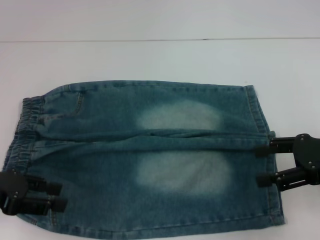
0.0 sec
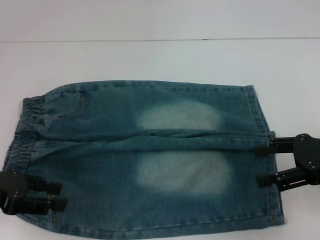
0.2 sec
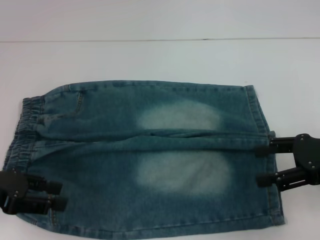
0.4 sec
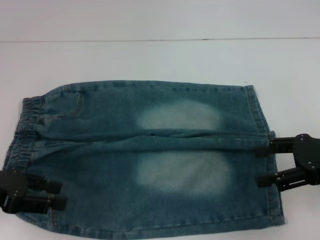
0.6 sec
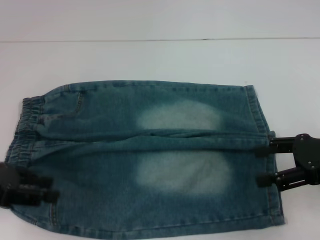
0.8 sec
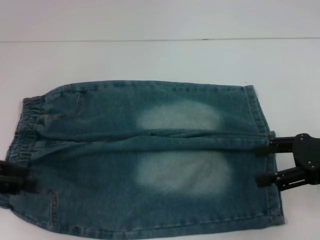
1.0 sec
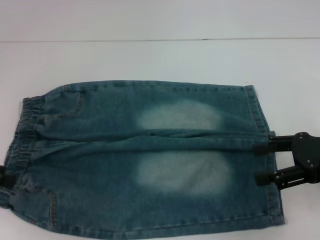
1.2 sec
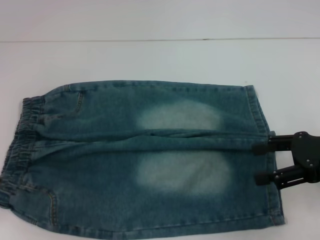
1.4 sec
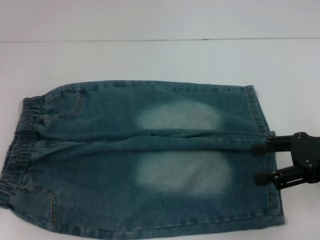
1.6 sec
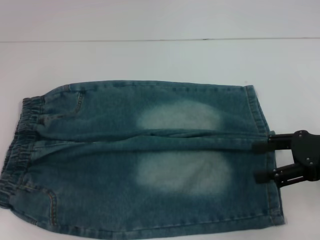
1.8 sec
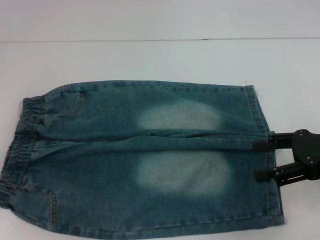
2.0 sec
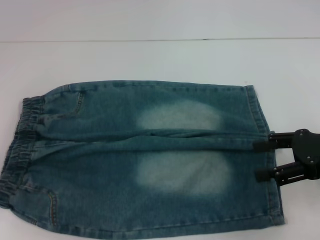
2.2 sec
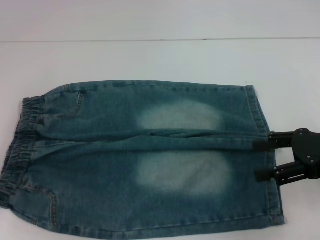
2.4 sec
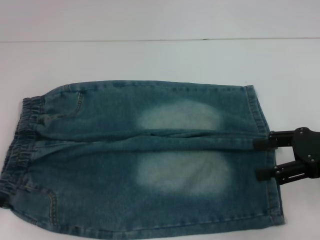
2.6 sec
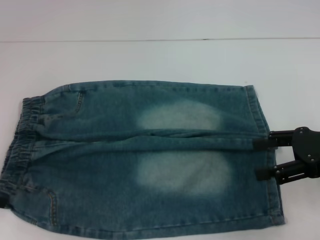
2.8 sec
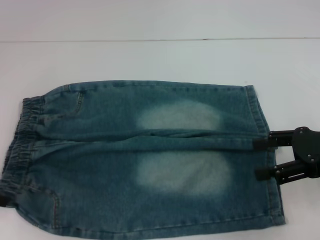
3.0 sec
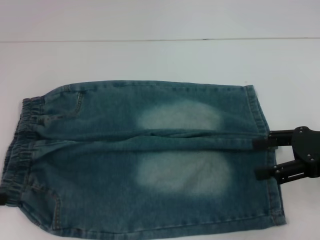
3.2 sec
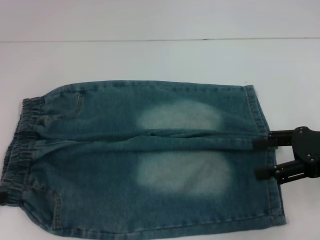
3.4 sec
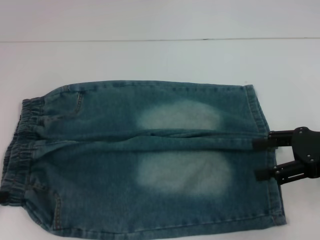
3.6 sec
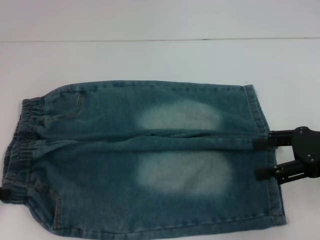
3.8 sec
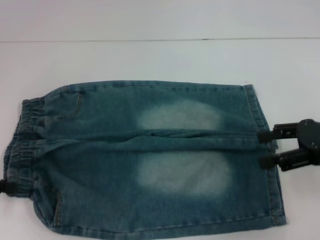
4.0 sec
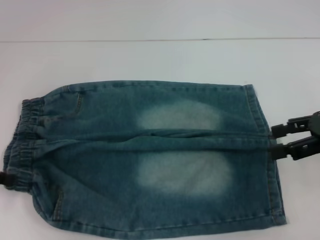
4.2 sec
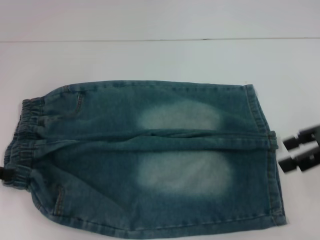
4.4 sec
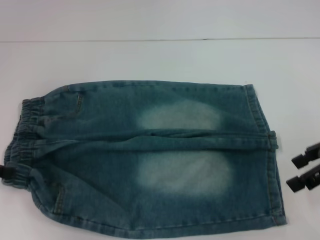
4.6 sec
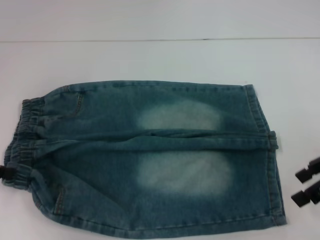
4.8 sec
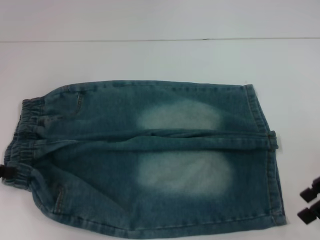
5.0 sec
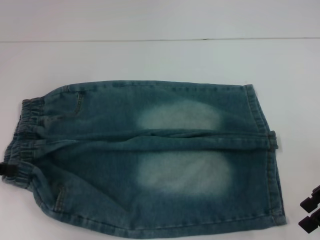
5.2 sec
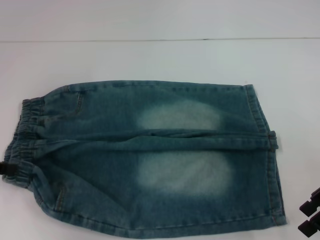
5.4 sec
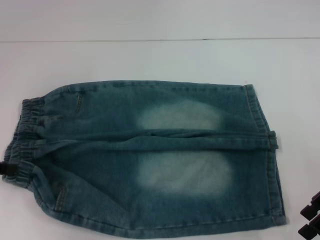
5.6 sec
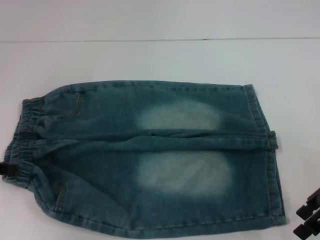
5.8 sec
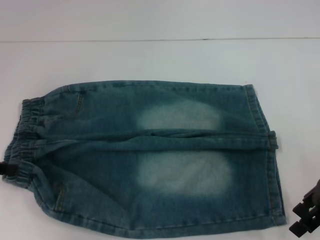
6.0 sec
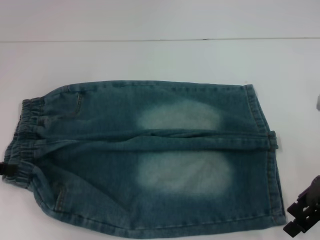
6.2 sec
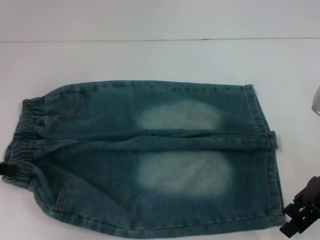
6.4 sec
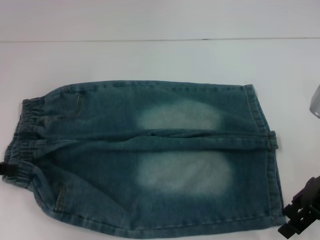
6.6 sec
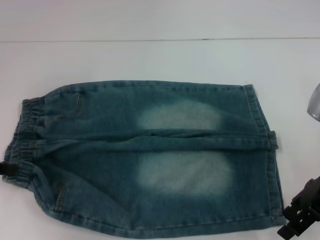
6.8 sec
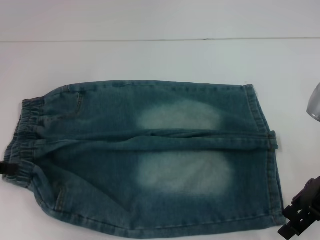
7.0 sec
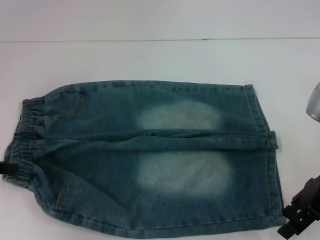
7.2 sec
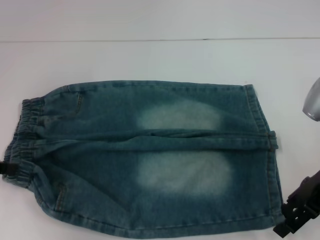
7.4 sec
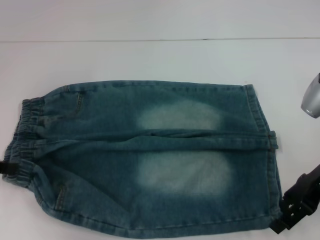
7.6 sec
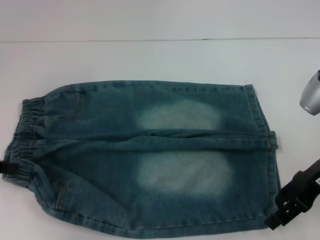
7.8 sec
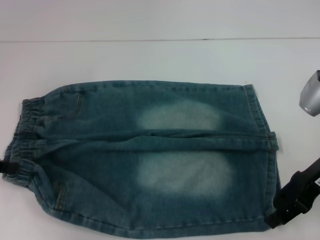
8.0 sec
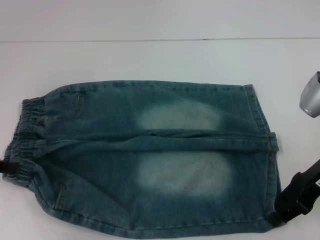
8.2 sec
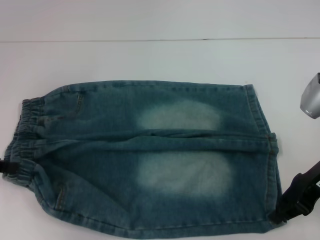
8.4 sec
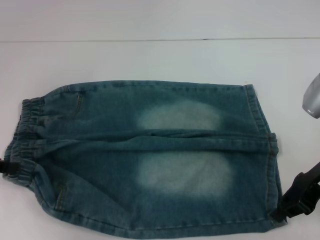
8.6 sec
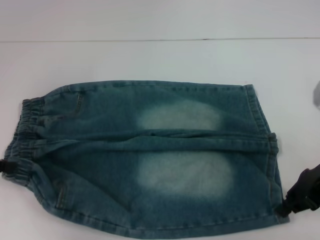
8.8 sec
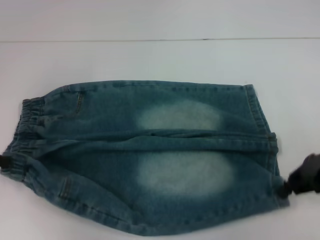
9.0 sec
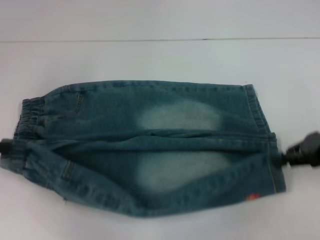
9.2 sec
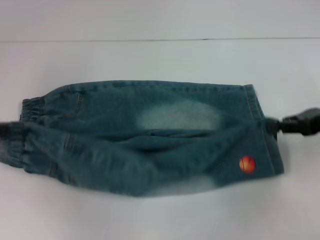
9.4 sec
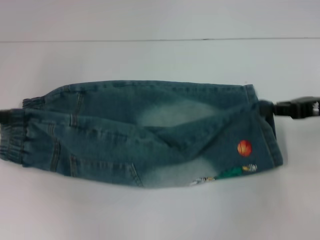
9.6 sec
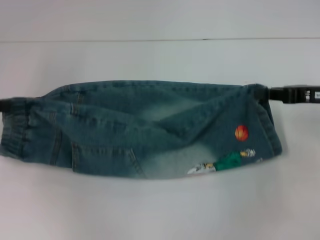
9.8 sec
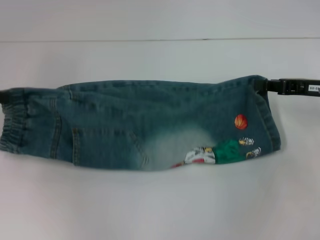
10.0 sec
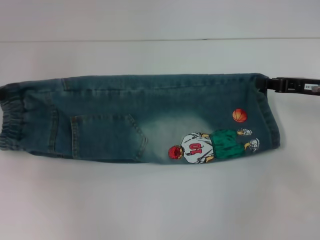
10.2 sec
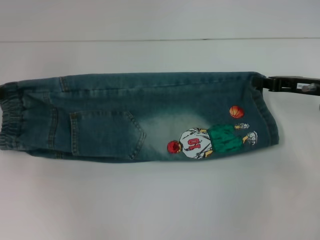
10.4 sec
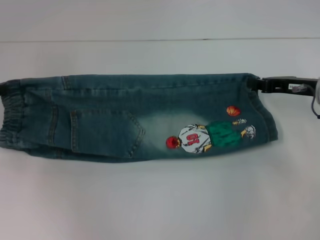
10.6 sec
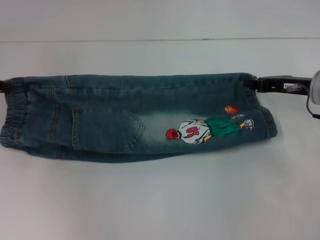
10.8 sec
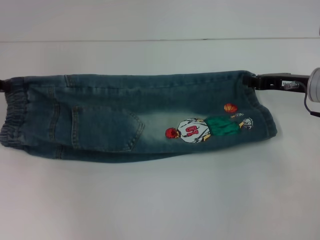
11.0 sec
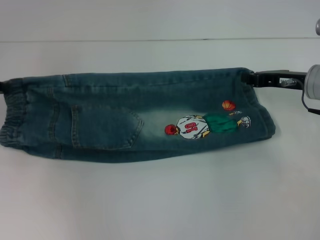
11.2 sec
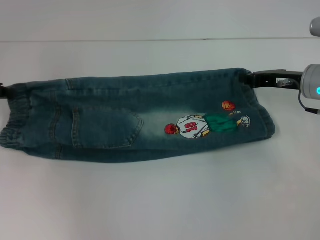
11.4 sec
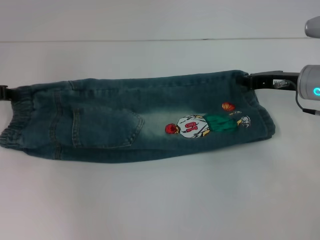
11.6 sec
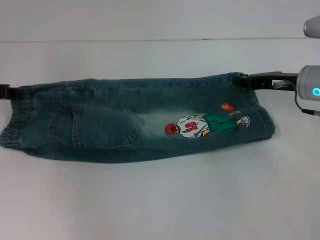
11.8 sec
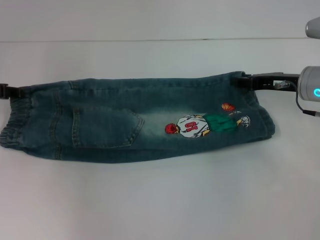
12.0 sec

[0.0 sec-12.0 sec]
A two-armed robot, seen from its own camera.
Step, 0.0 sec to 3.6 sec: Hold the lower left waistband with your left hand.
Step, 3.8 sec to 8.6 sec: Grab the lower right pant leg with your right hand.
0.0 sec to 1.6 sec: The left gripper moves to the left, approximately 5 cm.
1.6 sec to 3.0 sec: The grippers stay close to where they were, moving slightly.
3.0 sec to 4.4 sec: The right gripper ends up about 5 cm from where it was. The left gripper closes up.
4.4 sec to 6.0 sec: The right gripper goes about 5 cm downward.
6.0 sec to 7.6 sec: The grippers move only a little.
7.6 sec to 9.0 sec: The right gripper closes its fingers.
9.0 sec to 10.4 sec: The two grippers go roughly 5 cm forward.
10.4 sec to 12.0 sec: There are only small adjustments of the grippers.

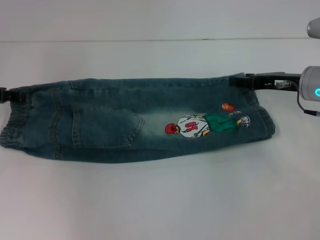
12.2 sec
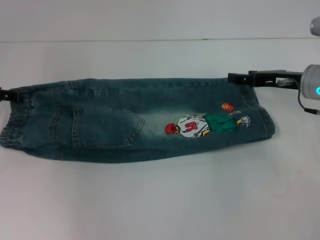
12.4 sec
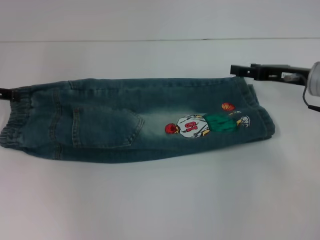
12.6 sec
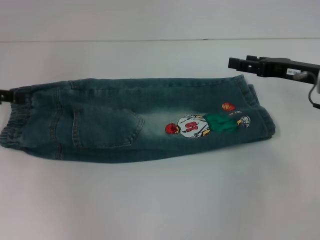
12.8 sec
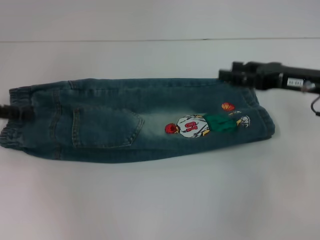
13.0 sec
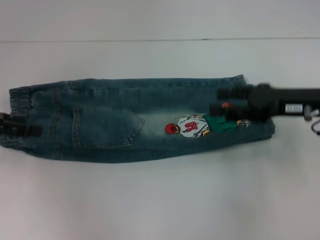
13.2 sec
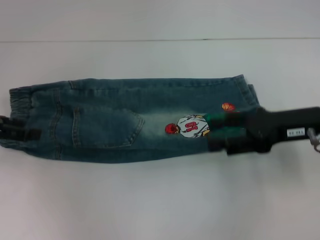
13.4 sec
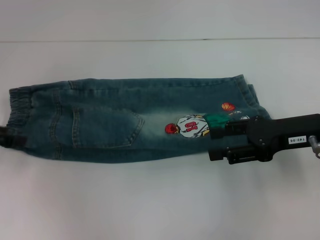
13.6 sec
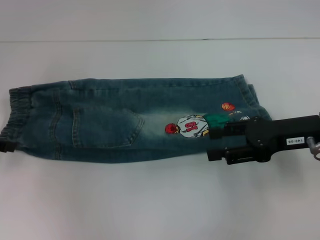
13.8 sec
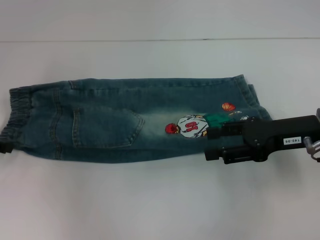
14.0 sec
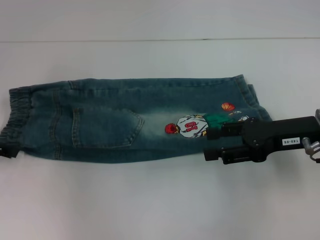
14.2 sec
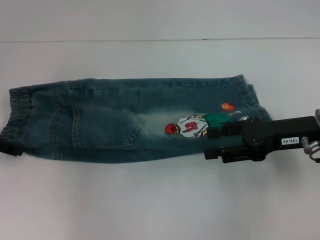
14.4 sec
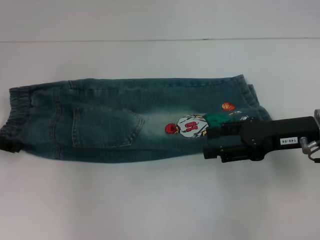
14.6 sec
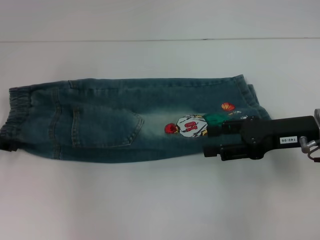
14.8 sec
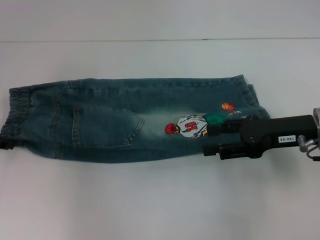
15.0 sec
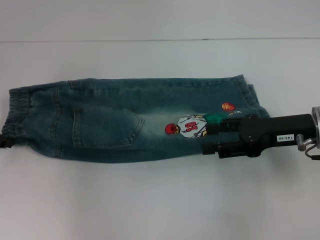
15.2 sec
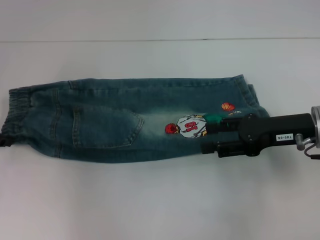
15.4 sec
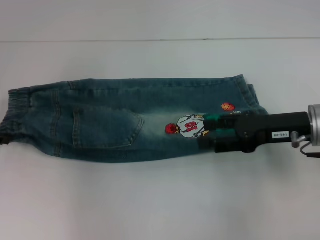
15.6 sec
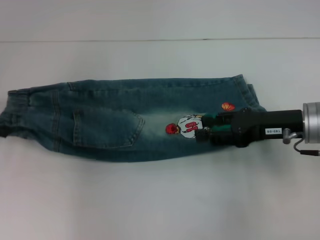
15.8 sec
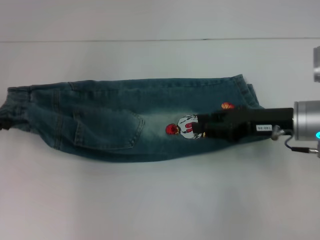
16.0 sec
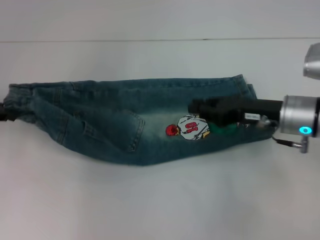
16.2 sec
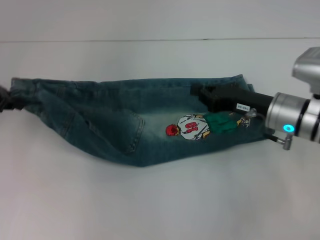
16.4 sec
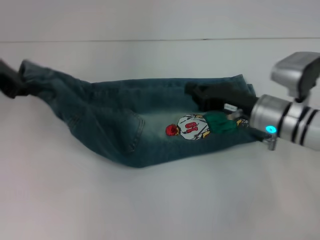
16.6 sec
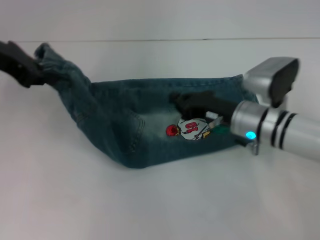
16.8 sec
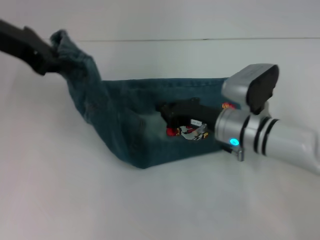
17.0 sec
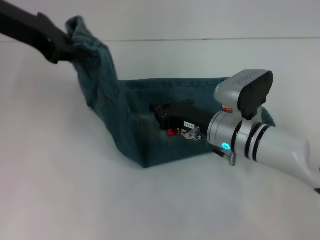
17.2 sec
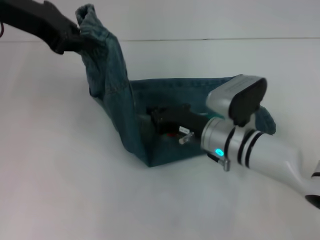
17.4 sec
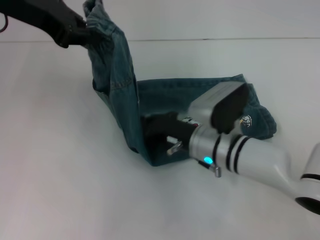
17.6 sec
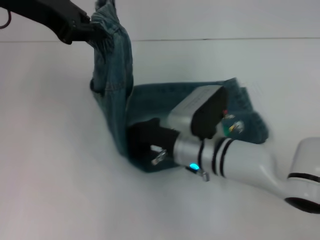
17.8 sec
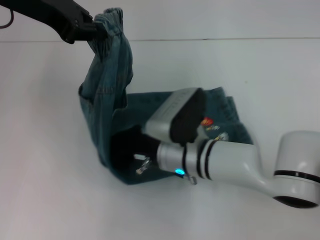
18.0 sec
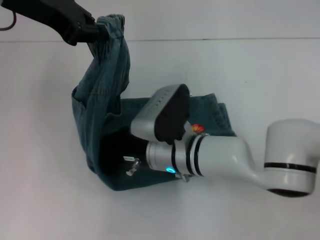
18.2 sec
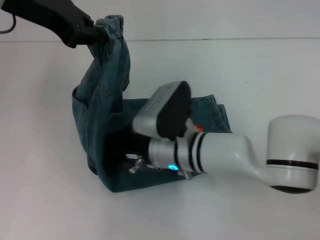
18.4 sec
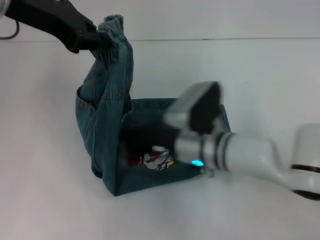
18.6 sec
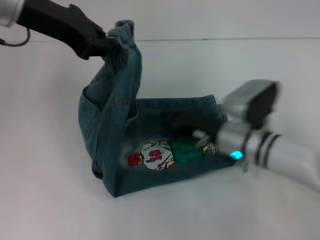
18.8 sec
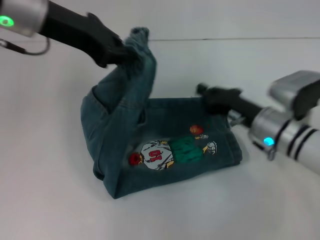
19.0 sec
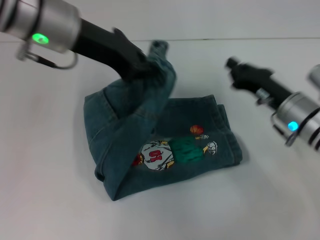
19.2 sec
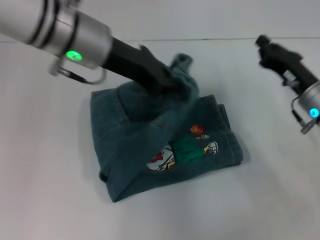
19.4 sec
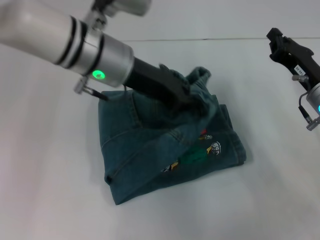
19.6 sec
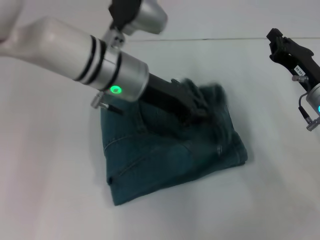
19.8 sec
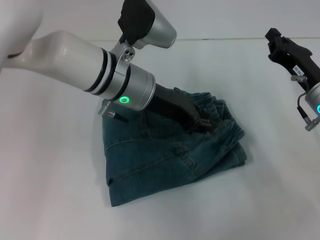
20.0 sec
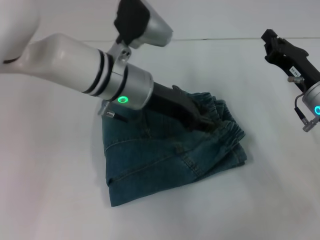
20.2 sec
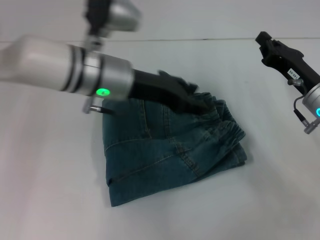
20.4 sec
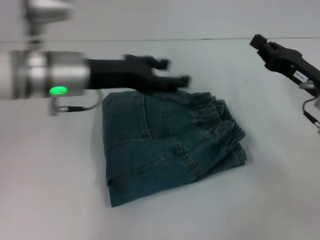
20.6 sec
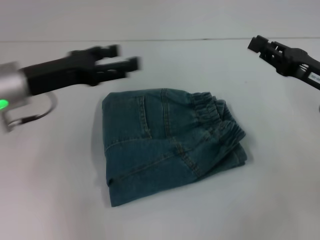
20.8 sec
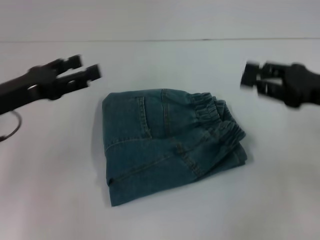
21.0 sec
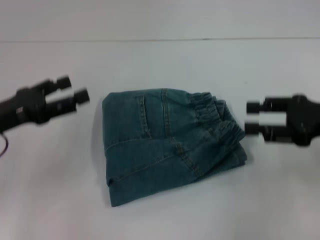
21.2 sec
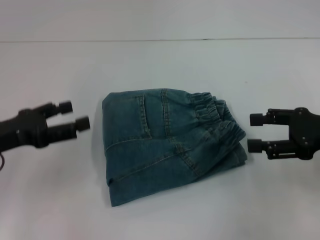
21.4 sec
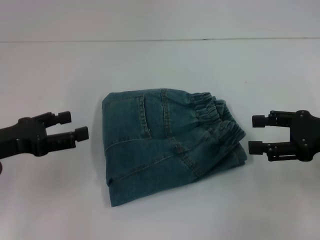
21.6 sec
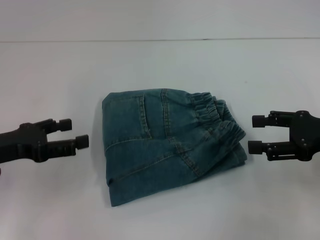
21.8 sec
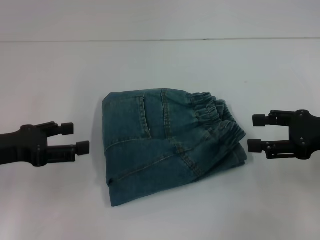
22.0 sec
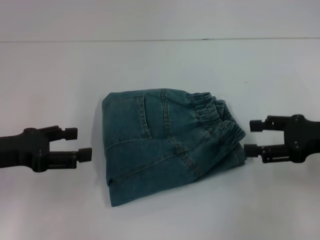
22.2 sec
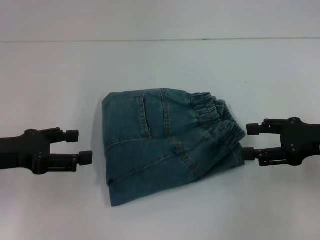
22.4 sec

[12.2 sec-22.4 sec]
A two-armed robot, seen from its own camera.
Step, 12.6 sec to 15.4 sec: Hold the waistband with your left hand.
Step, 15.6 sec to 18.2 sec: Press the middle of the pants with your right hand.
Step, 18.4 sec to 20.0 sec: Fold to the right with your left hand.
12.2 sec to 13.6 sec: Both grippers travel together backward, some 5 cm. The right gripper opens its fingers; the left gripper opens.
13.6 sec to 15.2 sec: The left gripper closes up.
15.2 sec to 16.6 sec: The left gripper shifts about 10 cm upward and to the right. Meanwhile the right gripper heads to the left and downward, covering approximately 10 cm, and closes its fingers.
16.6 sec to 18.0 sec: The left gripper shifts approximately 10 cm to the right and upward. Meanwhile the right gripper goes about 15 cm to the left.
18.0 sec to 19.4 sec: The left gripper is displaced to the right and downward by approximately 10 cm. The right gripper is displaced to the right by approximately 20 cm.
19.4 sec to 21.0 sec: The left gripper moves to the left, downward and backward, some 20 cm, and opens its fingers. Meanwhile the right gripper shifts some 5 cm upward.
21.0 sec to 22.4 sec: The right gripper opens up.
